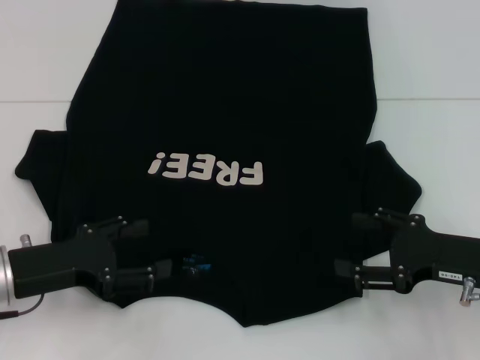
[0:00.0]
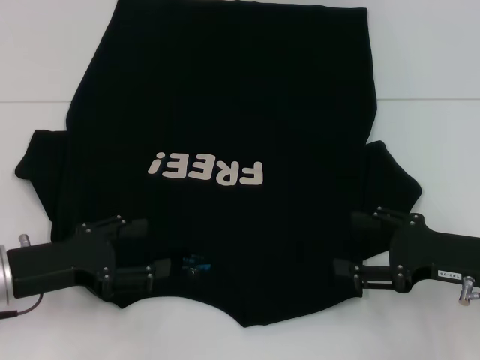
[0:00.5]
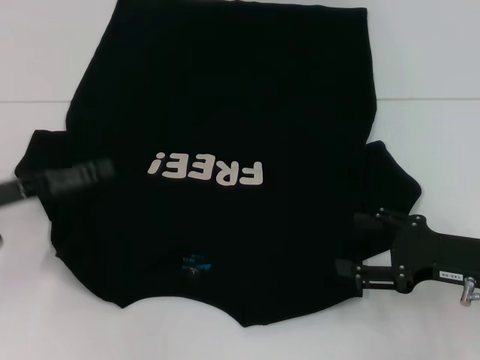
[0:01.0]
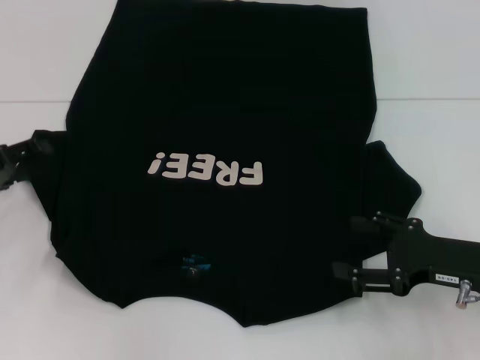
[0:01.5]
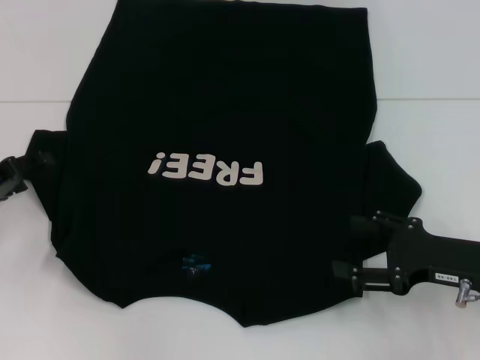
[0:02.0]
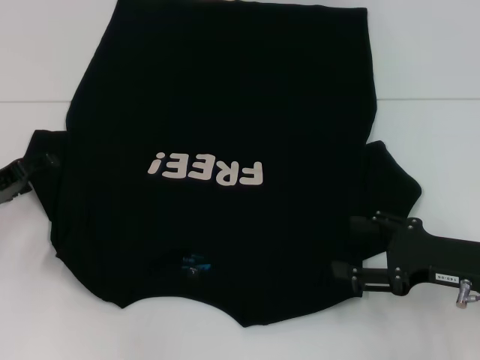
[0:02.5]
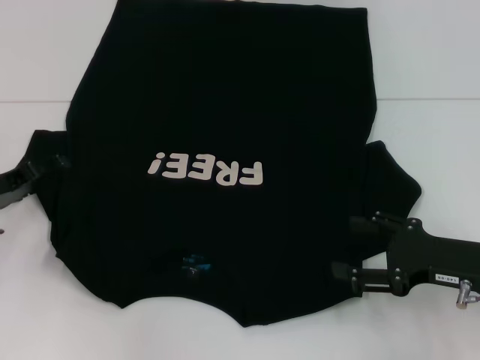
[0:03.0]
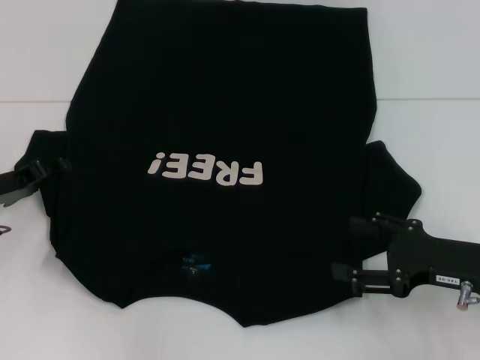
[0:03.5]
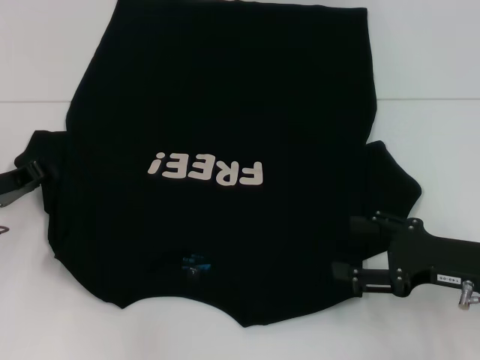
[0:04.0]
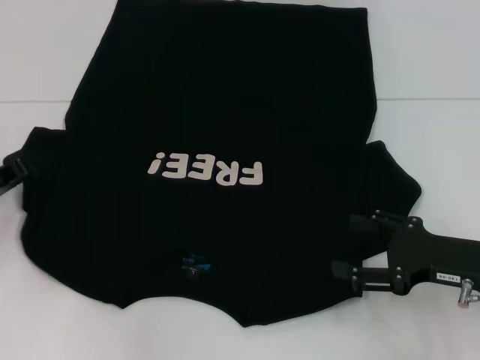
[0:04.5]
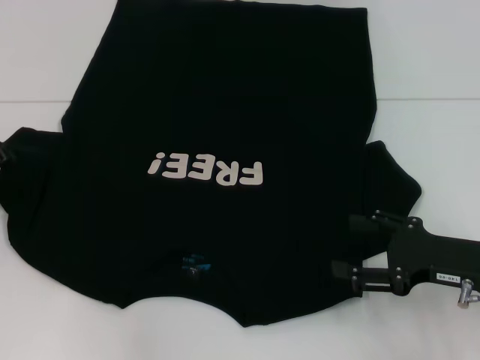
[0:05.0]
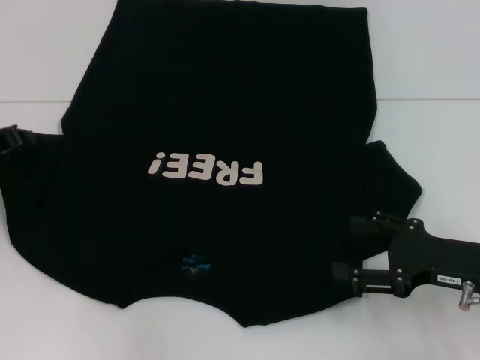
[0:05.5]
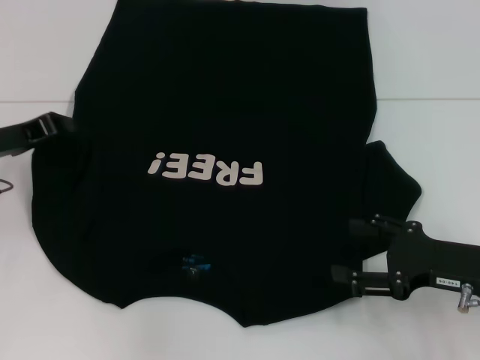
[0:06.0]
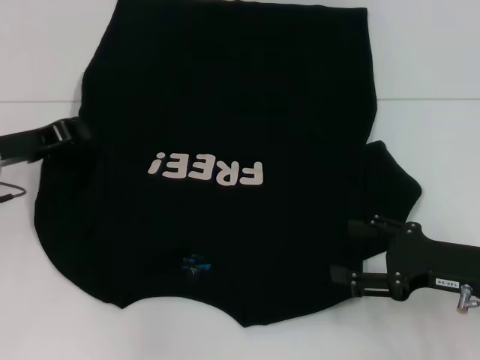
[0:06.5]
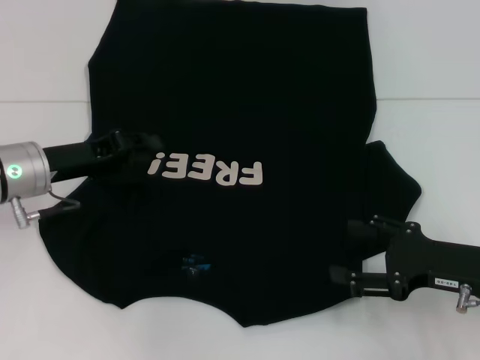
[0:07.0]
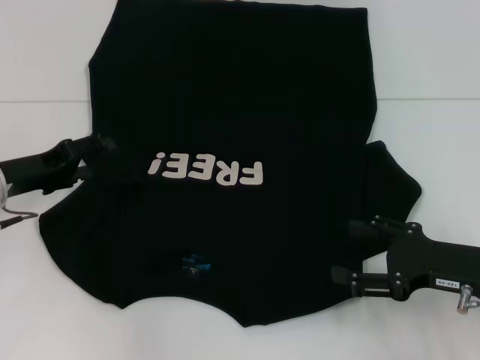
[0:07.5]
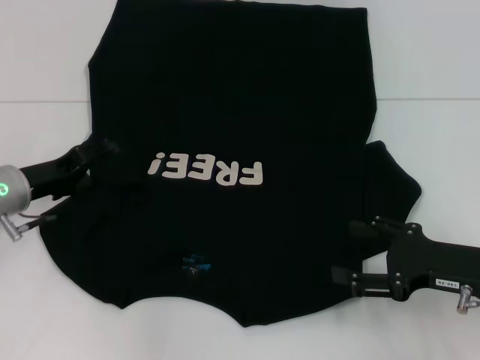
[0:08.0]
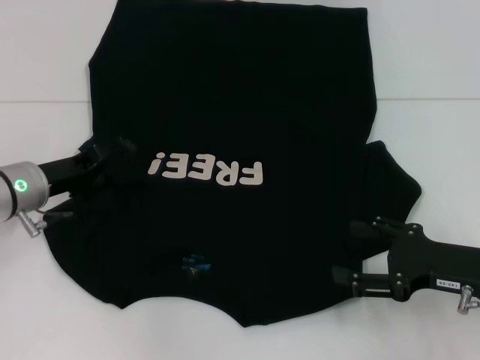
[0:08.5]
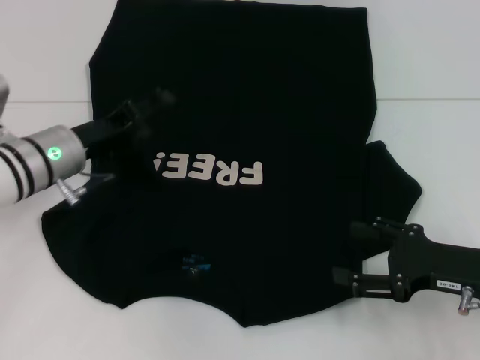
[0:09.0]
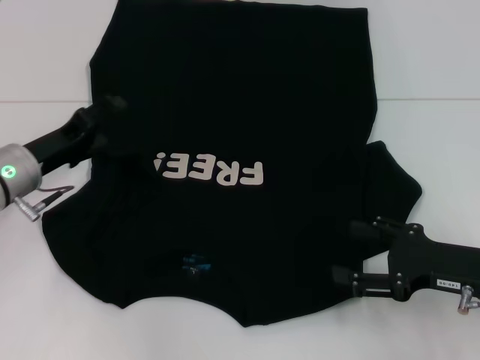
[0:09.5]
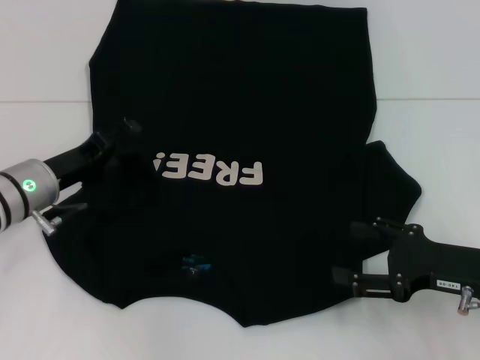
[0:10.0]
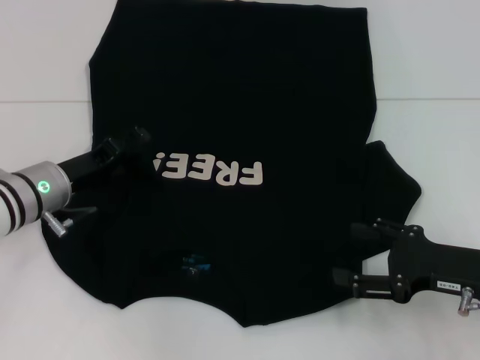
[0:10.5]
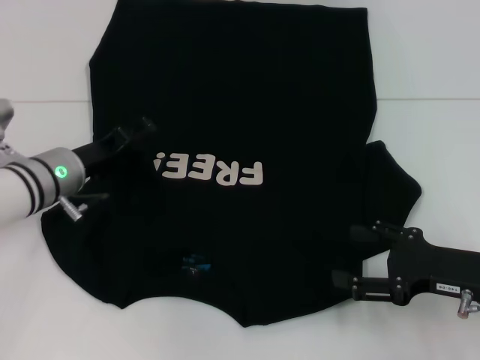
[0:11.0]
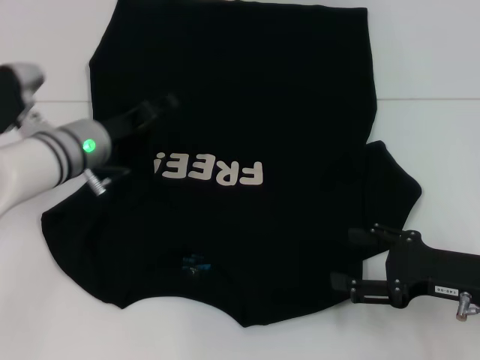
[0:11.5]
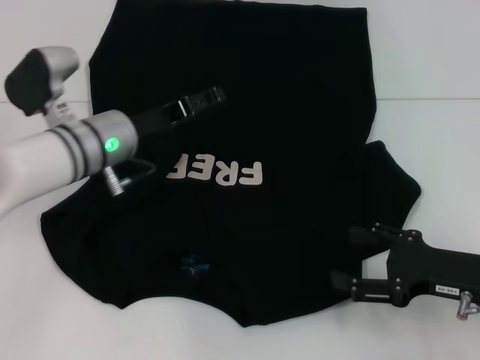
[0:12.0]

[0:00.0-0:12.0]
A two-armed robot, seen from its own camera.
0:00.0 to 0:02.0: The left gripper goes about 10 cm to the left and forward.
0:02.0 to 0:04.0: The left gripper closes.
0:04.0 to 0:06.0: The left gripper heads upward, covering roughly 5 cm.
0:06.0 to 0:08.0: The left gripper moves some 5 cm, and opens.
0:10.0 to 0:12.0: The left gripper goes about 10 cm to the right.

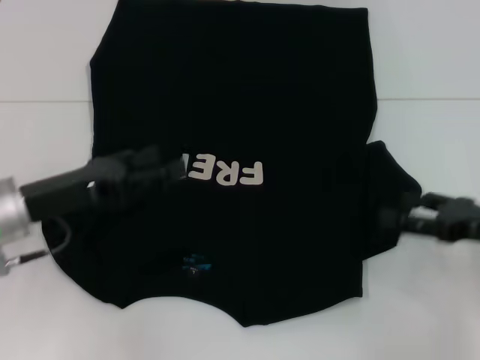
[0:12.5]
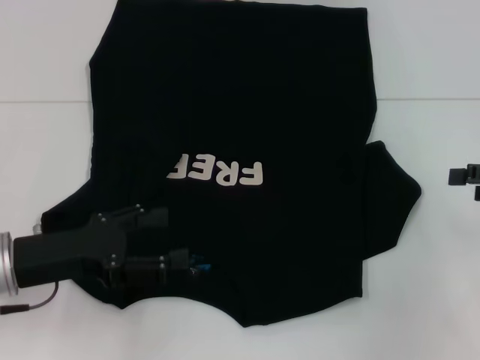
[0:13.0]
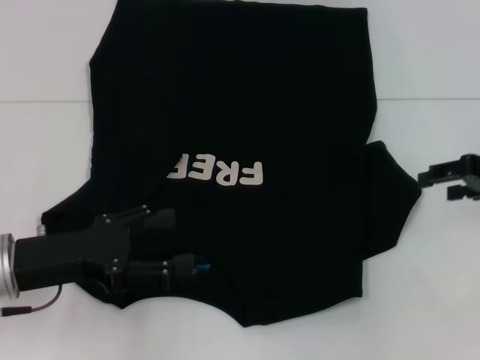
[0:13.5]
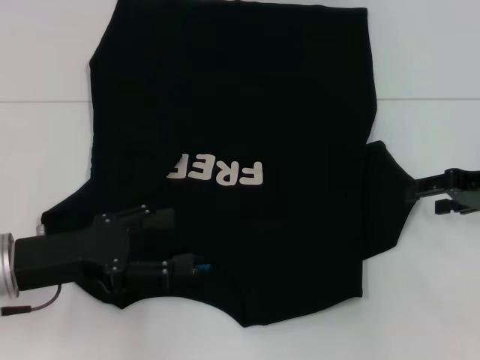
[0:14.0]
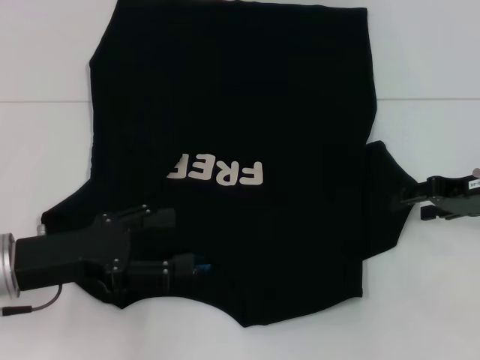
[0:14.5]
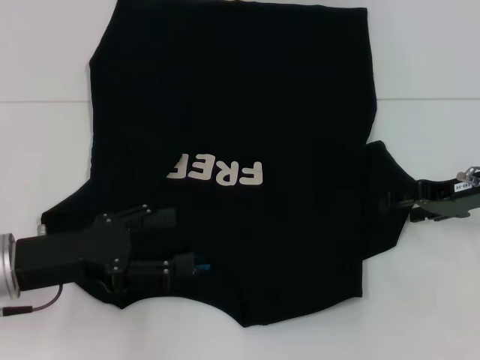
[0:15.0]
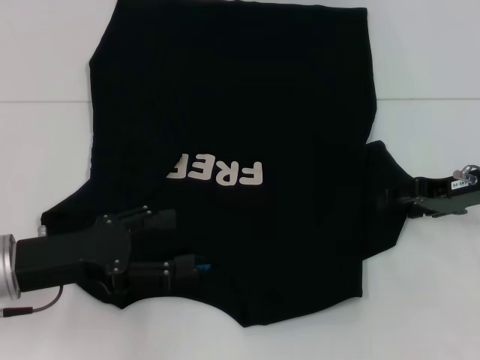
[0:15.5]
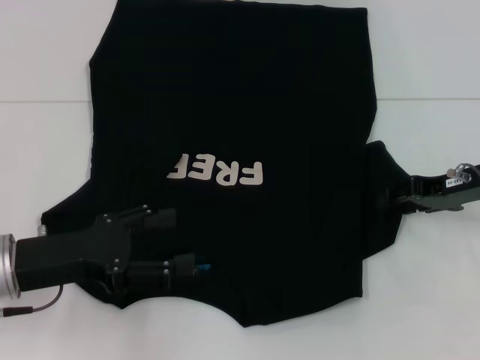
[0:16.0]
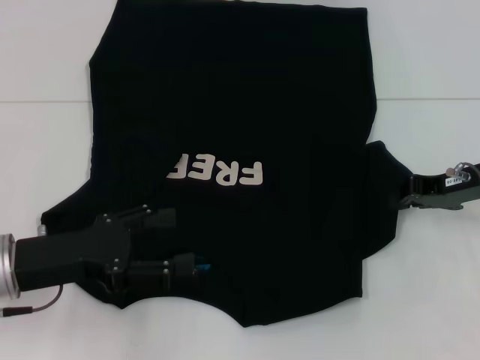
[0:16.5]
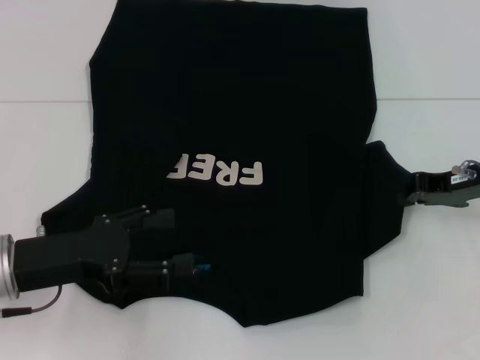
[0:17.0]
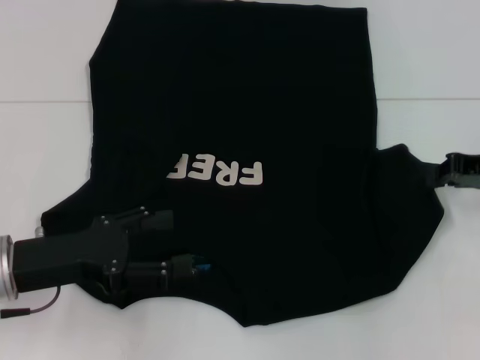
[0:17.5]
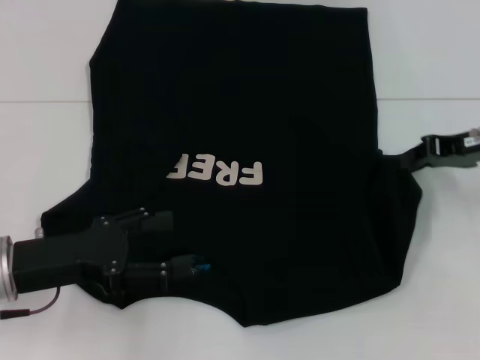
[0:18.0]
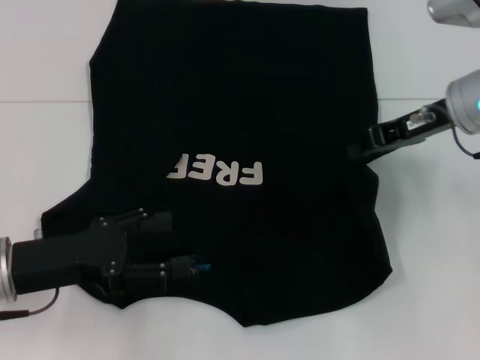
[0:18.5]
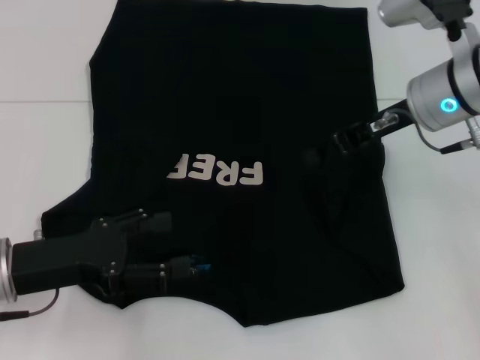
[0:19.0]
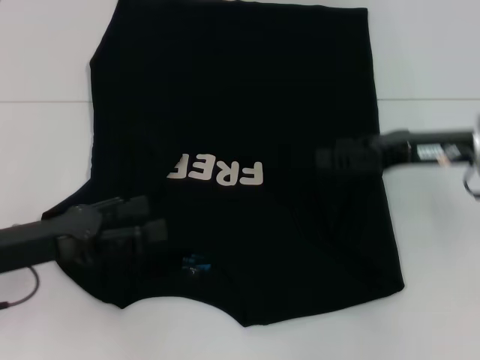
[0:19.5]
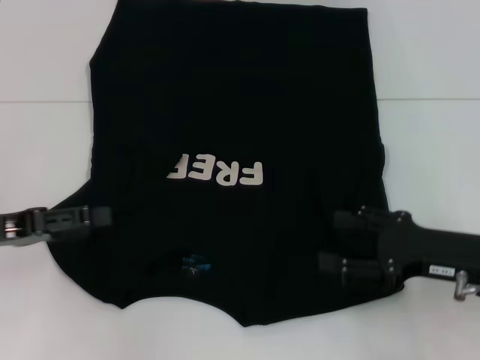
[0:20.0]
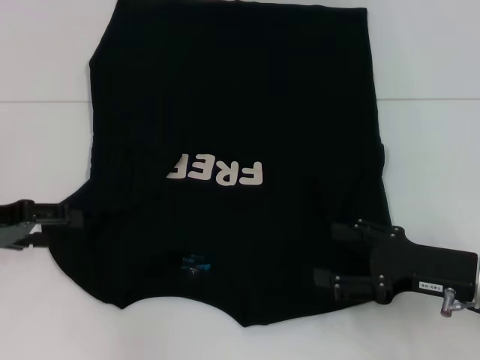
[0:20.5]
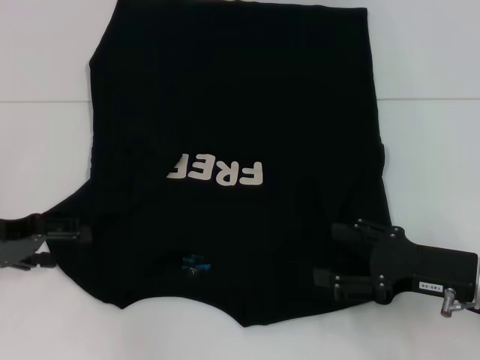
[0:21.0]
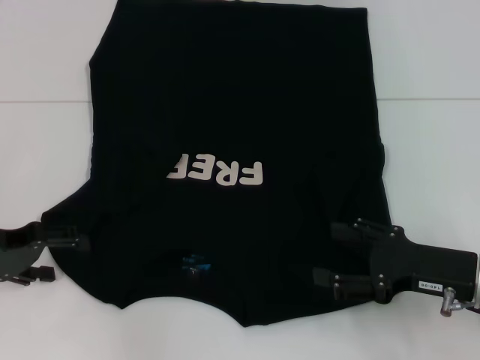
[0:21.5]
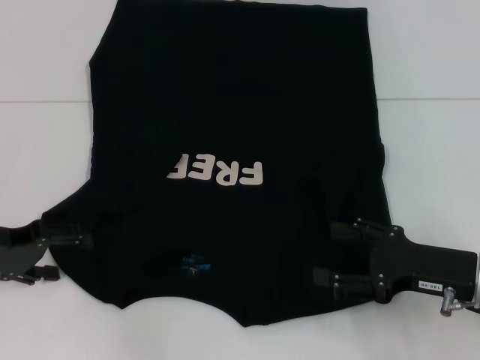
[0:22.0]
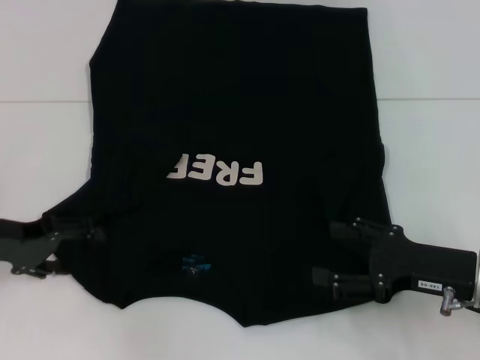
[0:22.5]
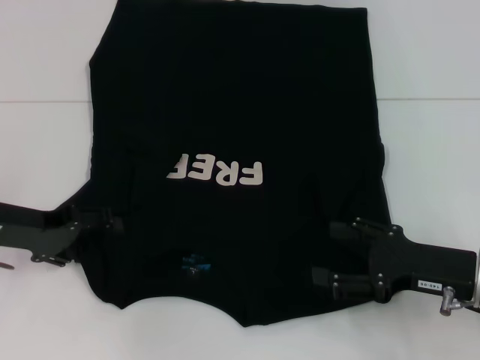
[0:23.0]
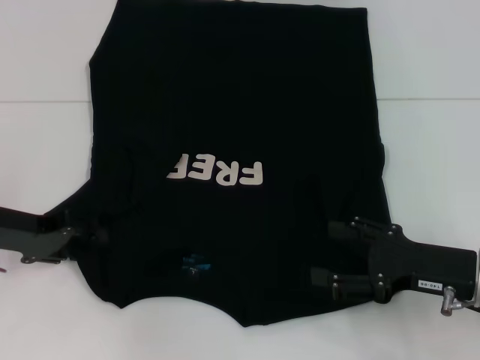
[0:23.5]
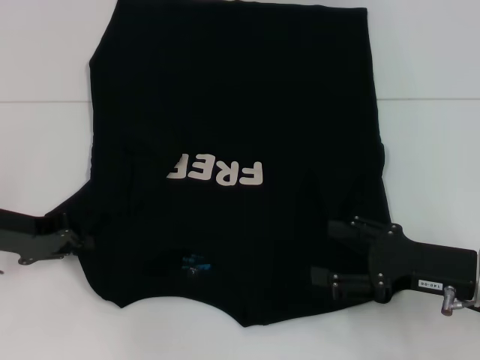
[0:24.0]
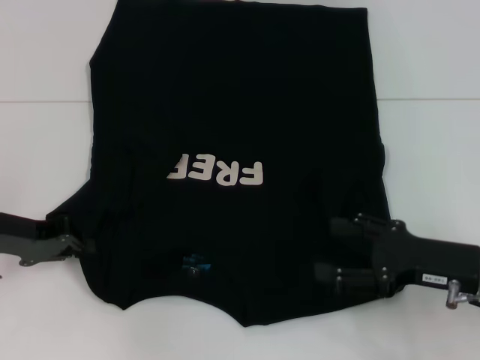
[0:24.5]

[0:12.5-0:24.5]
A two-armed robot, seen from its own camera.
Step, 0:13.5 to 0:19.5: Fold the bottom right sleeve with your right hand.
0:12.5 to 0:14.5: The right gripper travels forward by some 10 cm.
0:14.5 to 0:16.5: The right gripper closes its fingers.
0:16.5 to 0:18.5: The right gripper is displaced upward and to the left by approximately 10 cm.
0:18.5 to 0:20.5: The right gripper travels backward and downward by roughly 20 cm, and opens up, while the left gripper is displaced to the left by some 10 cm.
0:20.5 to 0:22.5: The grippers stay close to where they were, moving slightly.
0:22.5 to 0:24.5: The left gripper closes up.

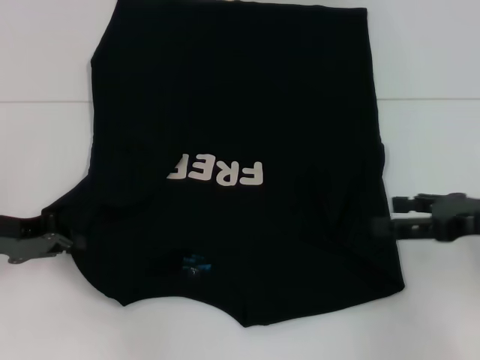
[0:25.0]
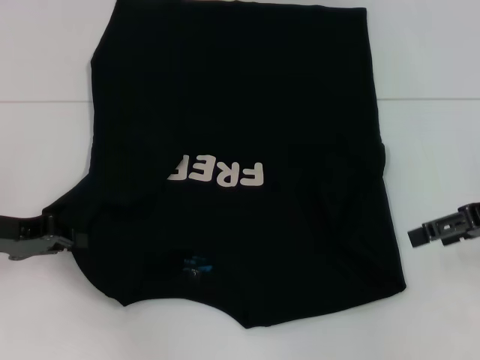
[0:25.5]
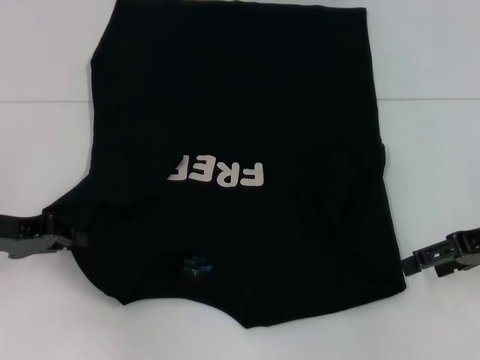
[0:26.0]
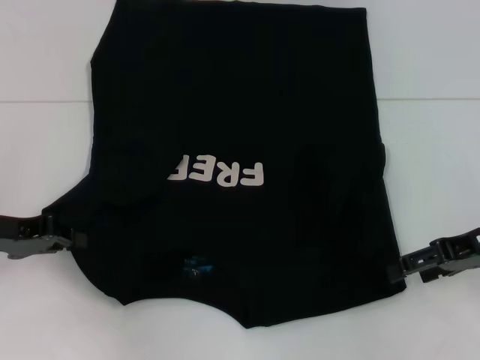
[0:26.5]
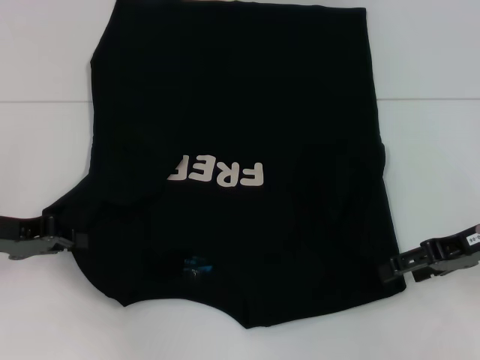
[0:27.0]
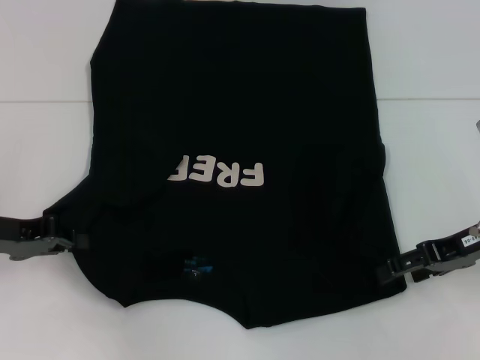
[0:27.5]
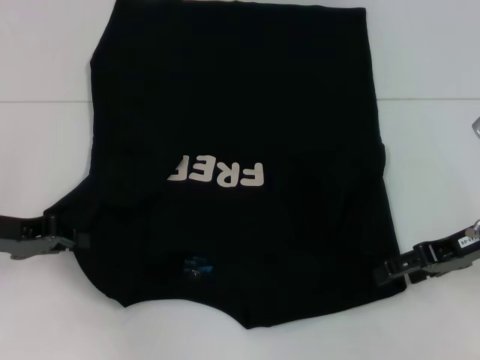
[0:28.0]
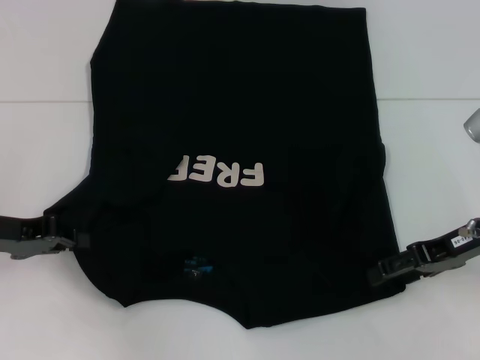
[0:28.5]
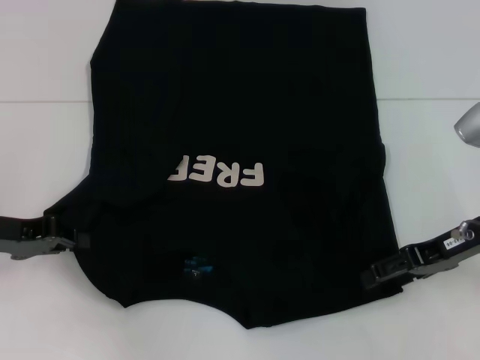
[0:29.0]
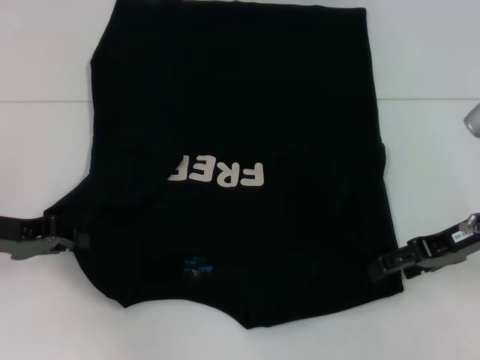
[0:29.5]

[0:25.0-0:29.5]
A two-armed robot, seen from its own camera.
0:27.0 to 0:29.5: There are only small adjustments of the grippers.
